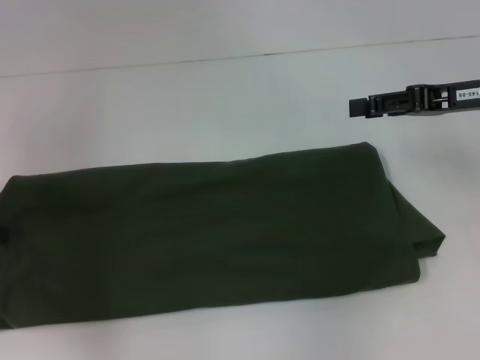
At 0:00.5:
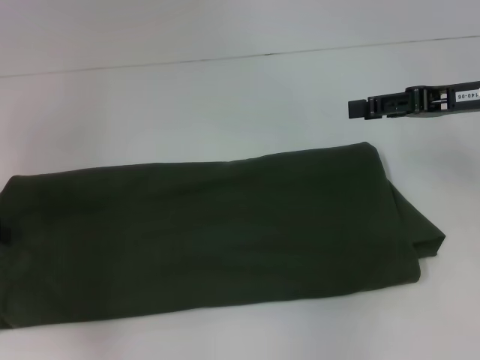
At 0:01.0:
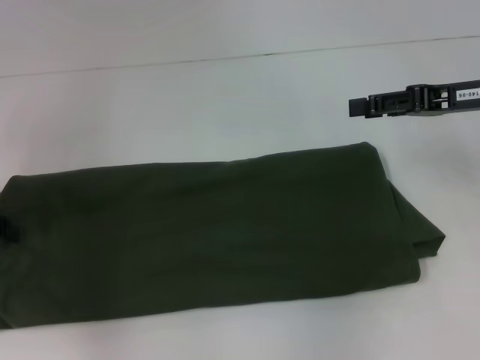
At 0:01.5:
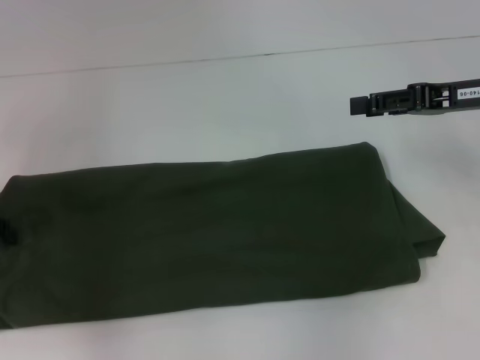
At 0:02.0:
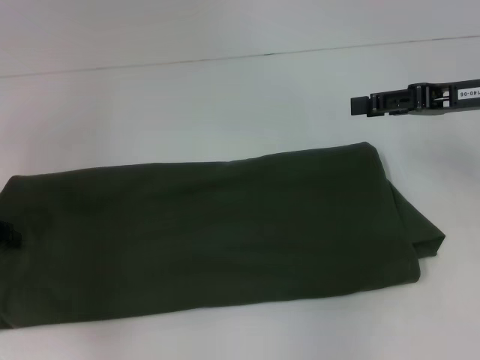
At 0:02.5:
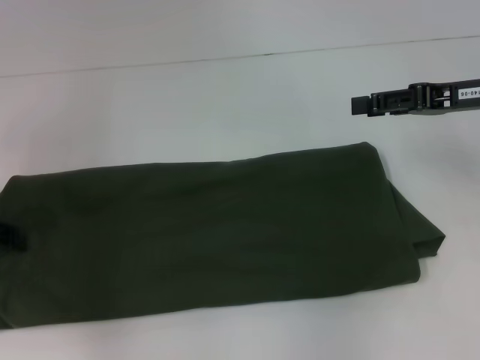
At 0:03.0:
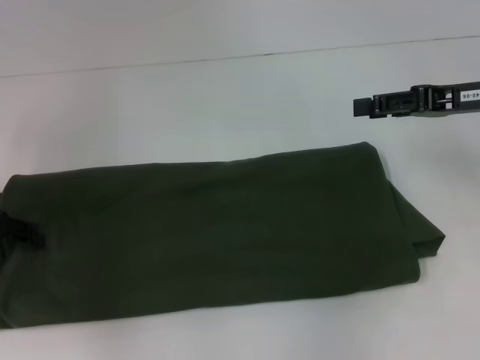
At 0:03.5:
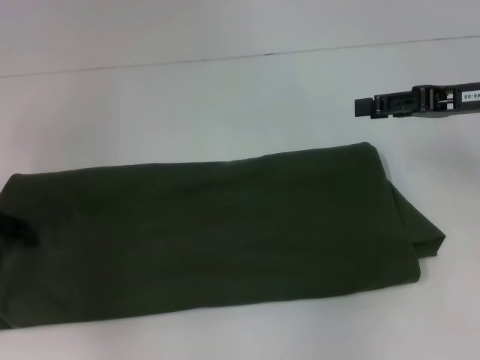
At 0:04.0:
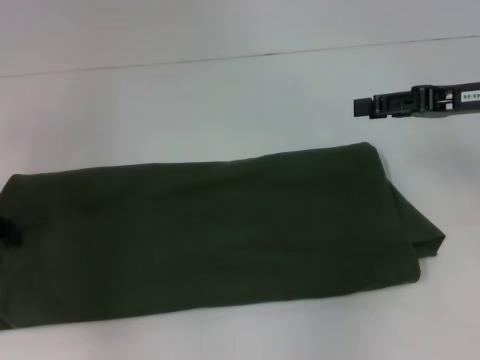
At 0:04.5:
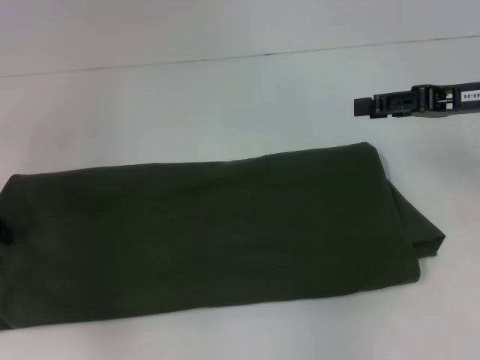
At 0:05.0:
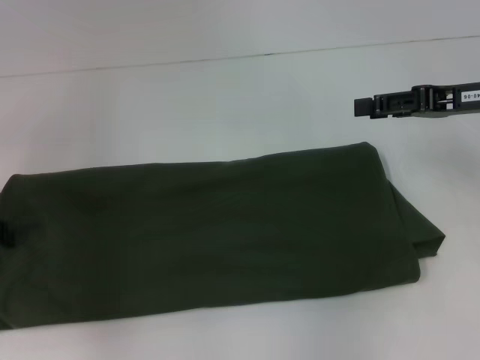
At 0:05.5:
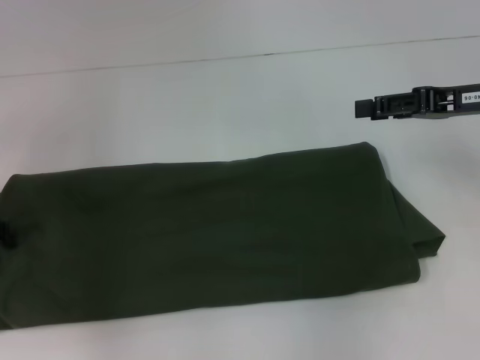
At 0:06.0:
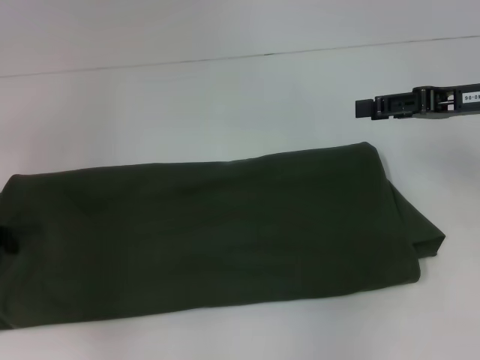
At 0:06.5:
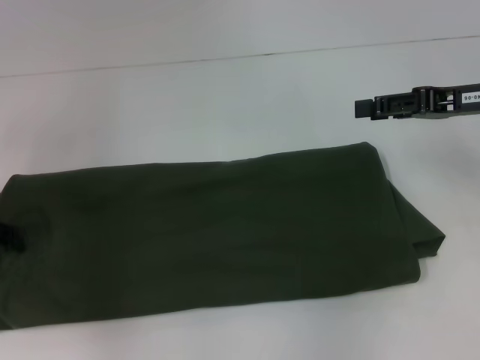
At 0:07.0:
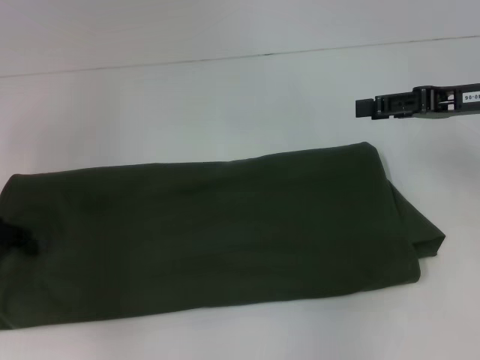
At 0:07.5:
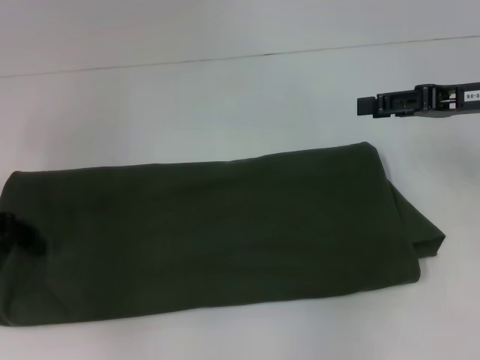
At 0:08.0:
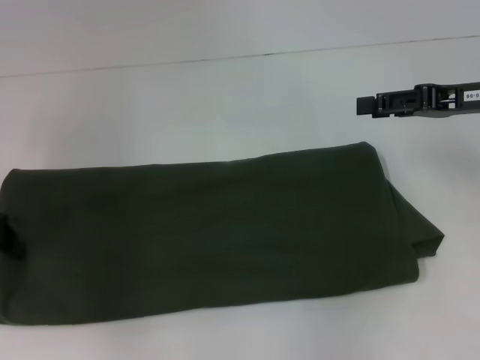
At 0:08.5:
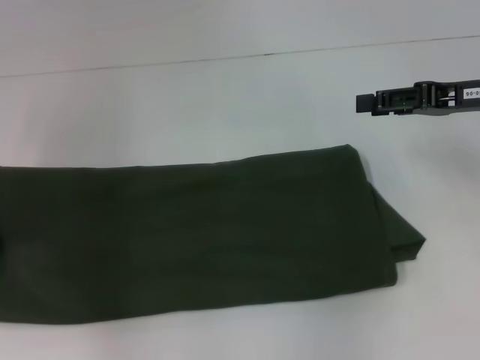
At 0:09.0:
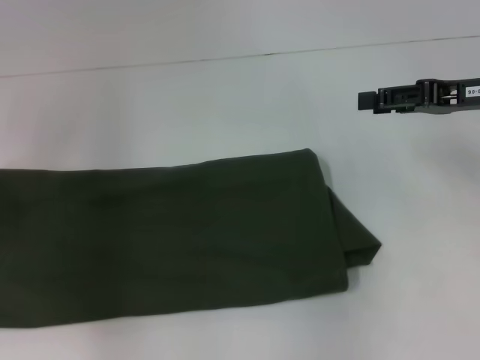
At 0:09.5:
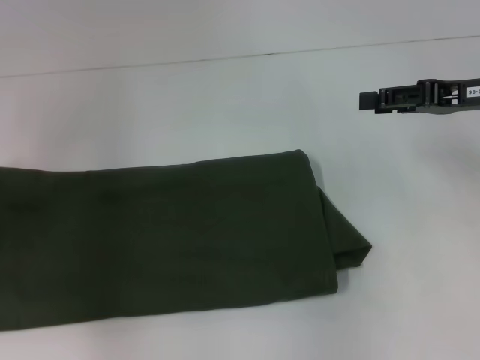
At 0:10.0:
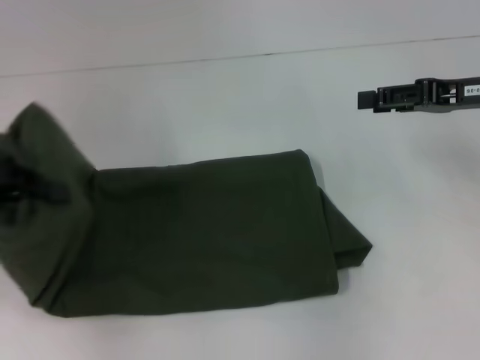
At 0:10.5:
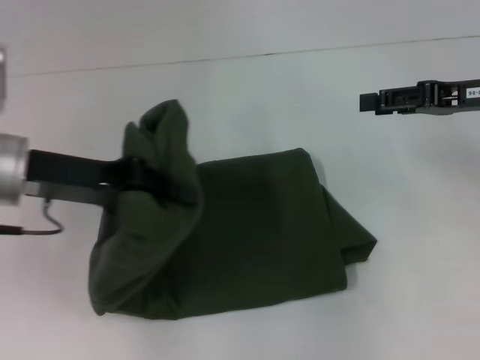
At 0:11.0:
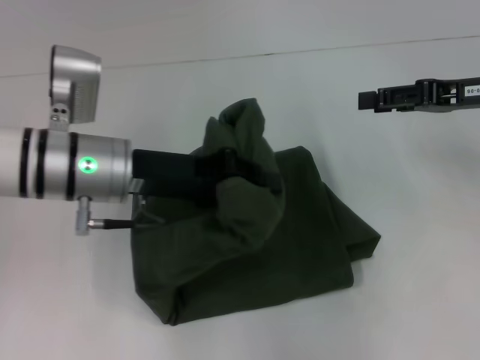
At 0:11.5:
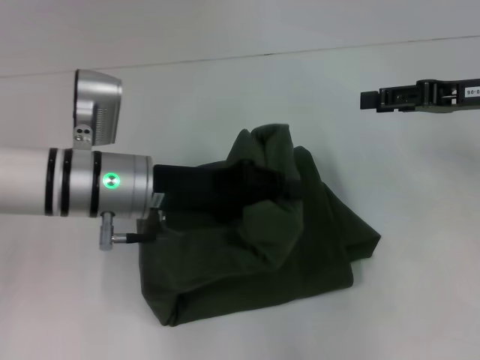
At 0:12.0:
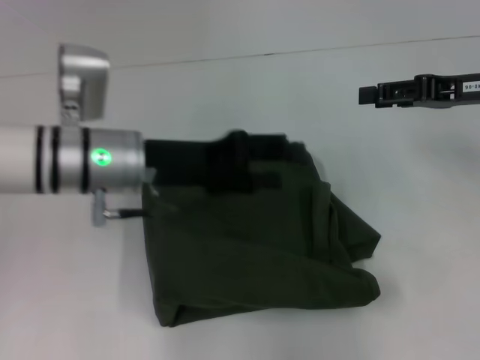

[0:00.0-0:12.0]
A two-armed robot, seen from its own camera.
0:02.0 to 0:04.0: There are only small adjustments of the grippers.
0:04.0 to 0:06.0: Neither gripper changes place.
0:06.0 to 0:08.0: The left gripper closes up.
0:08.0 to 0:10.0: The left gripper heads upward, covering some 5 cm.
0:10.0 to 0:12.0: The left gripper travels to the right by approximately 20 cm, and opens its fingers.

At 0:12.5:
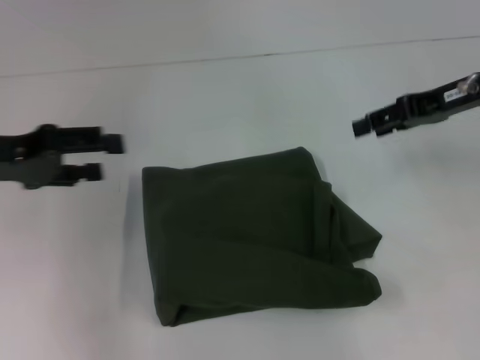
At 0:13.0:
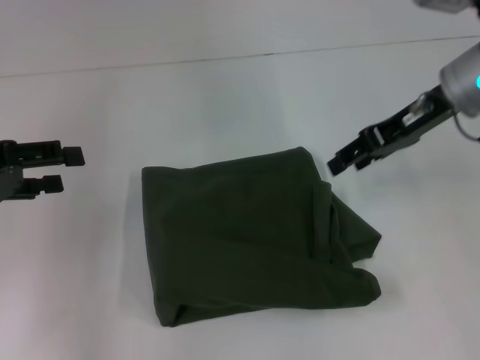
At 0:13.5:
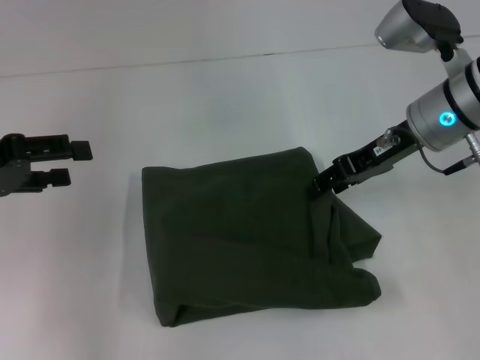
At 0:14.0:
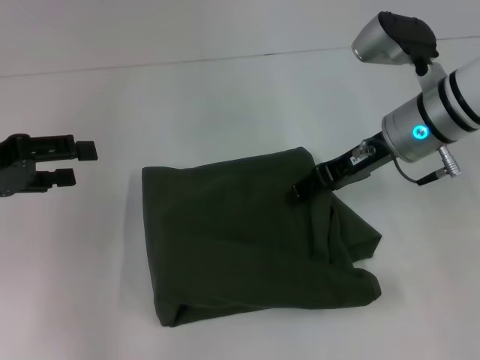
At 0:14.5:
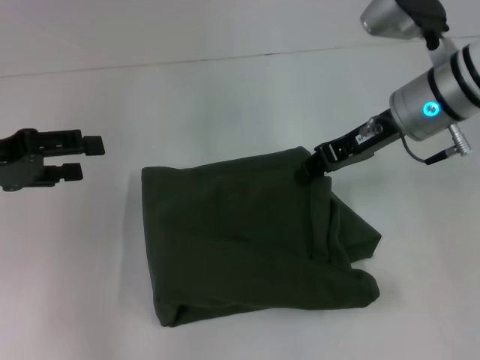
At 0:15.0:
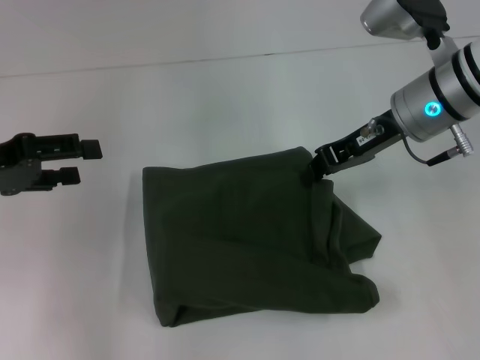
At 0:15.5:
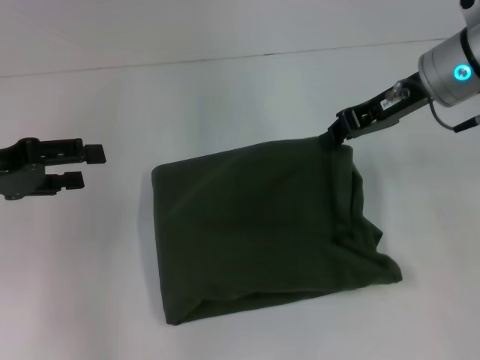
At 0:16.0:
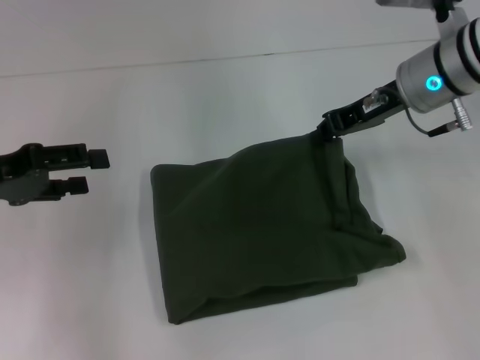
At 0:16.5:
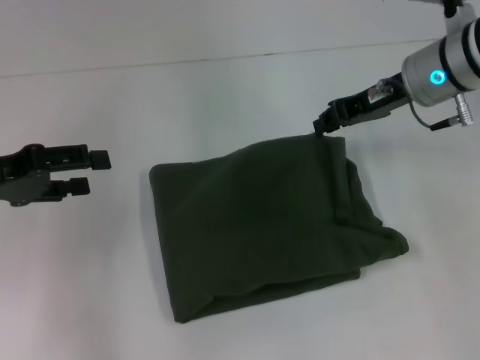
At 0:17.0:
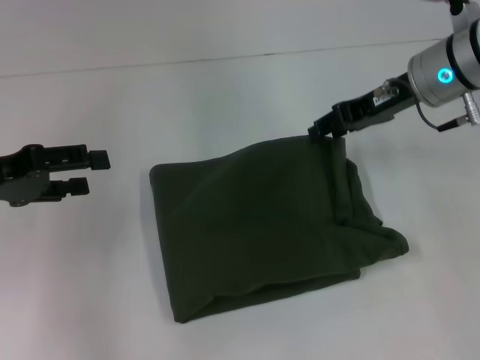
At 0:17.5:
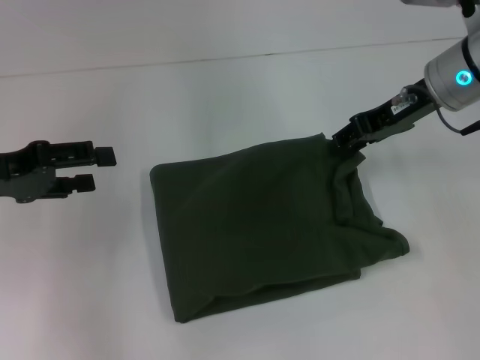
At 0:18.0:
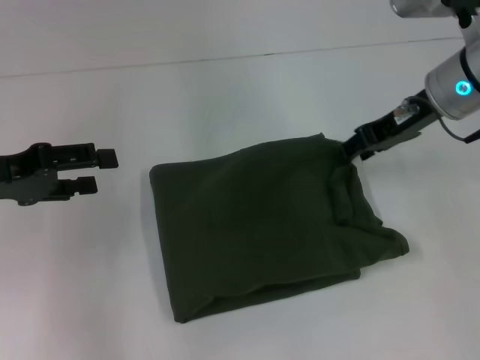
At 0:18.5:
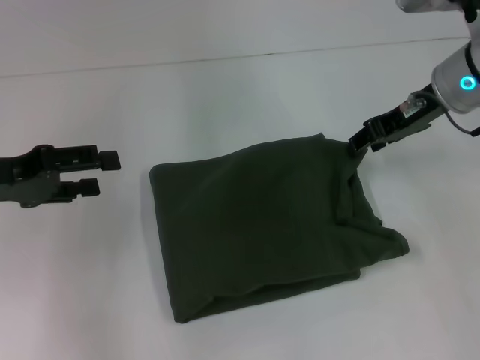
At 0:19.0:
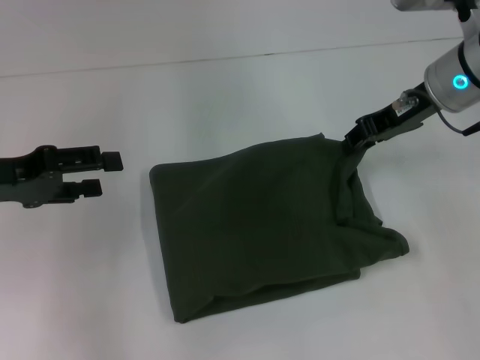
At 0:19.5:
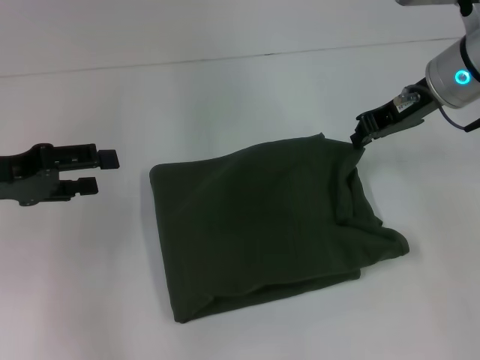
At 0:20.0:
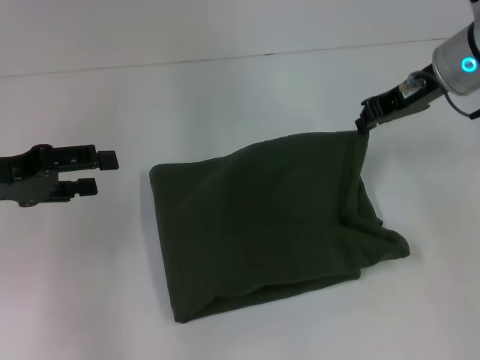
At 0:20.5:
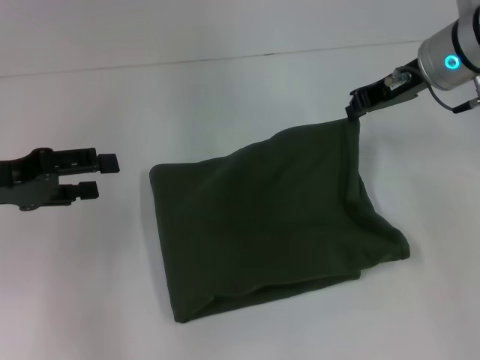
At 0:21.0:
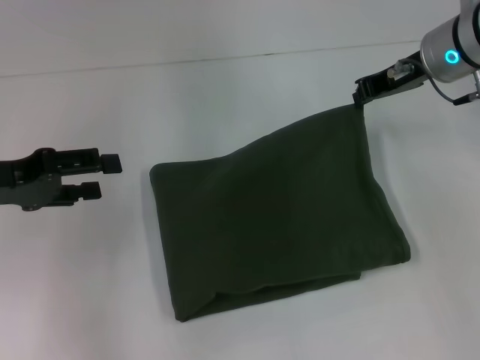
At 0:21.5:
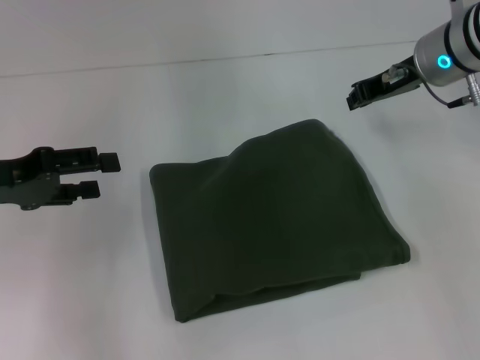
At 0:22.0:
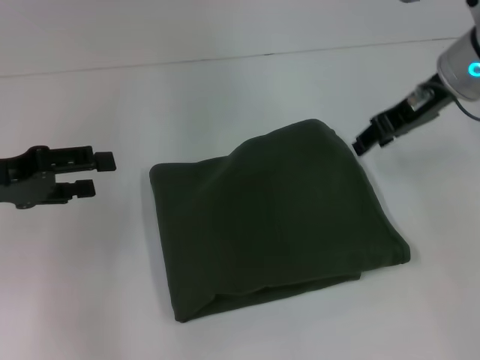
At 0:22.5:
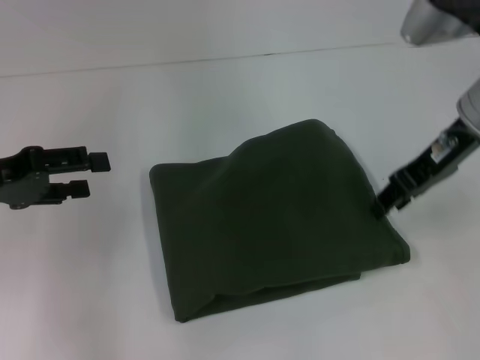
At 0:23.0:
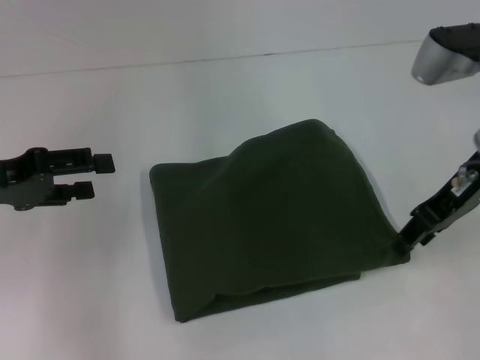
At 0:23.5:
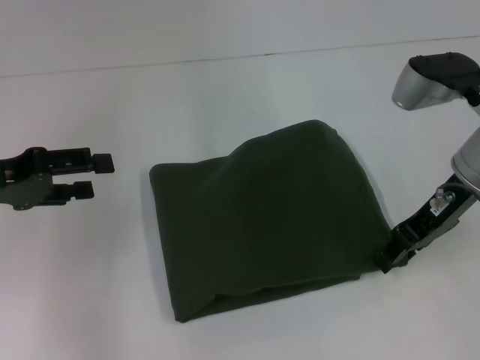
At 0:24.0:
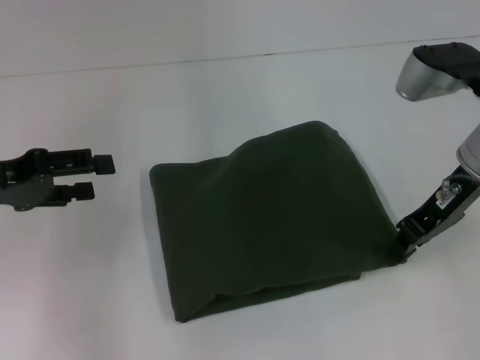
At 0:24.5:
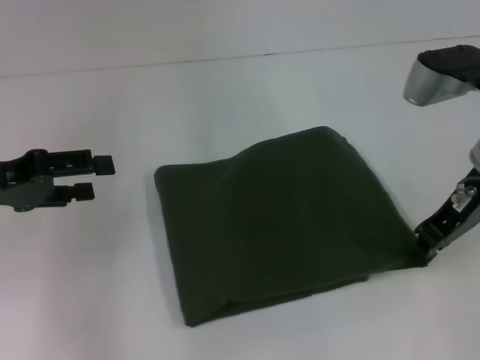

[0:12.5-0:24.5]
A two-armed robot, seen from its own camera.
0:12.5 to 0:14.5: The right gripper travels to the left by approximately 10 cm.
0:14.5 to 0:16.5: The right gripper closes its fingers.
0:16.5 to 0:18.5: The right gripper opens.
0:18.5 to 0:20.5: The right gripper closes its fingers.
0:20.5 to 0:22.5: The right gripper shifts roughly 5 cm backward, and opens its fingers.
0:22.5 to 0:24.5: The right gripper closes.

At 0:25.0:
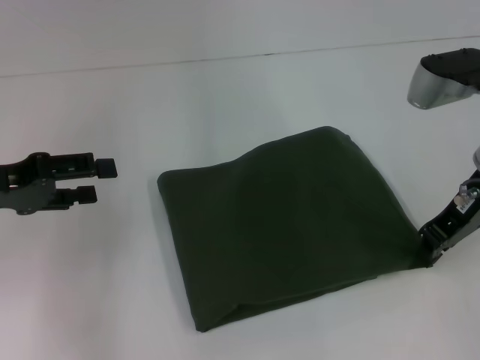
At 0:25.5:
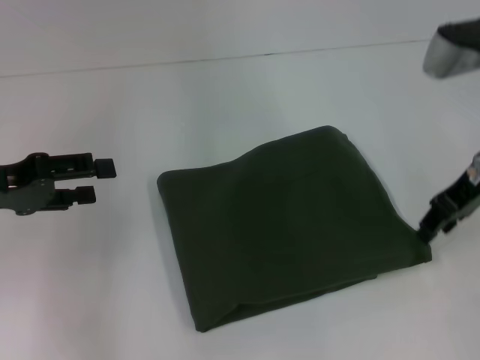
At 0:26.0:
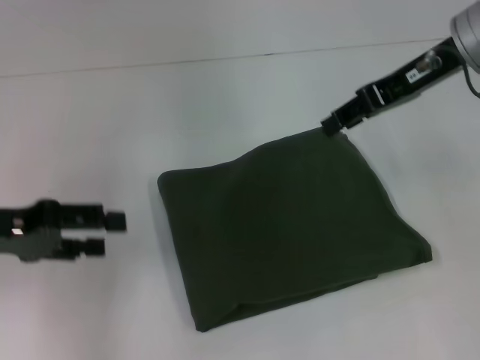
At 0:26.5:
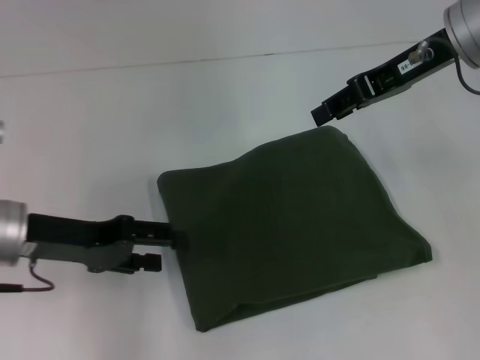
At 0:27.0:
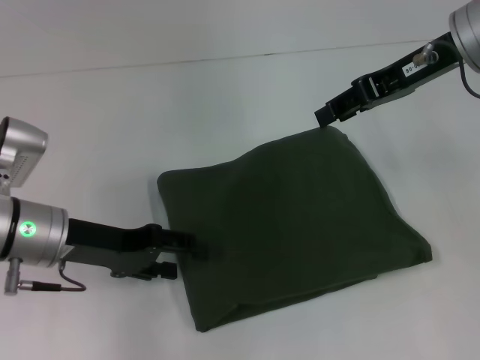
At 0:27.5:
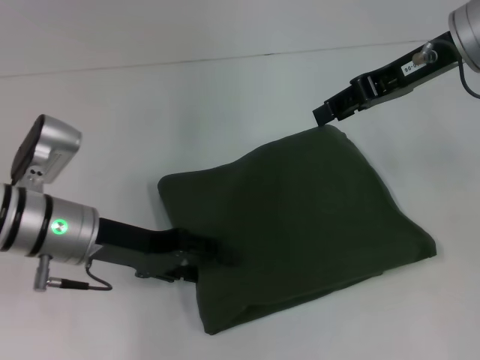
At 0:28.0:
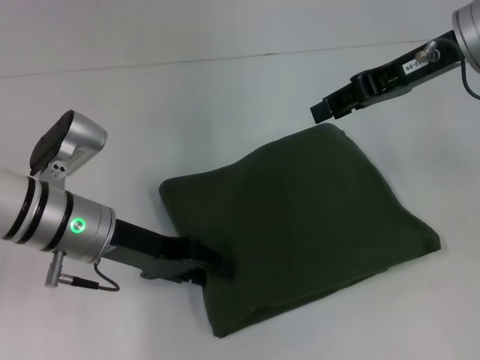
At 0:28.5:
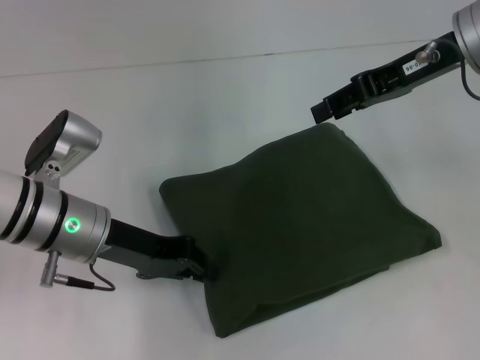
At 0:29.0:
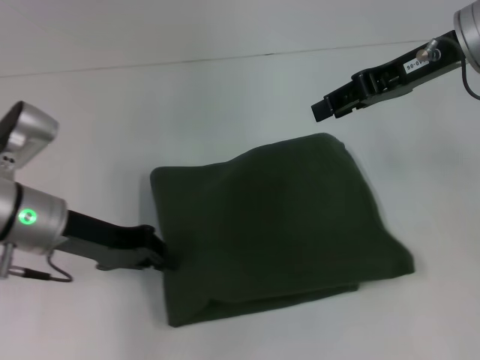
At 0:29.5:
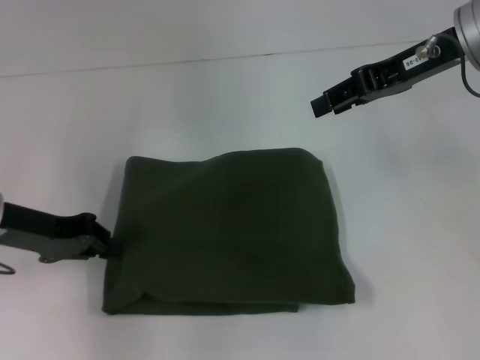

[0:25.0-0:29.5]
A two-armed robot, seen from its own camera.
0:25.0 to 0:27.0: The right gripper moves upward, some 10 cm, and opens up, while the left gripper goes approximately 10 cm to the right and downward.
0:27.0 to 0:29.5: The left gripper heads to the left, covering roughly 5 cm, and closes up.
